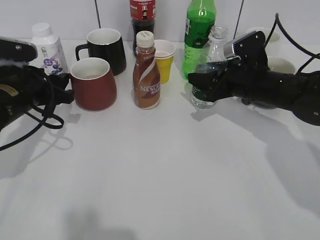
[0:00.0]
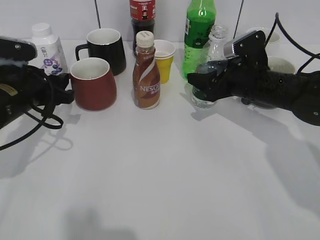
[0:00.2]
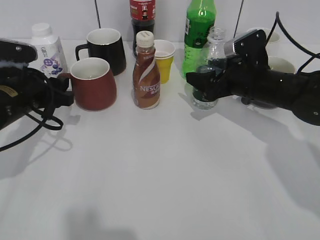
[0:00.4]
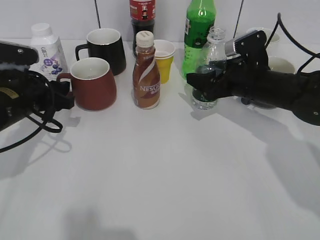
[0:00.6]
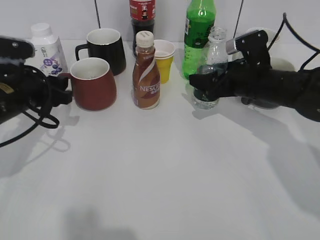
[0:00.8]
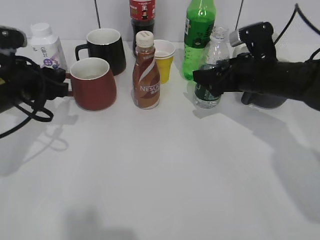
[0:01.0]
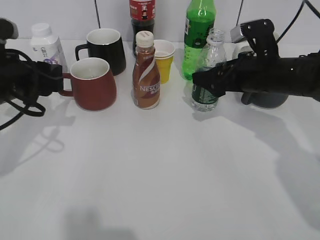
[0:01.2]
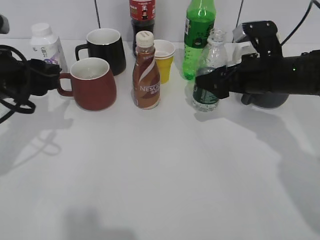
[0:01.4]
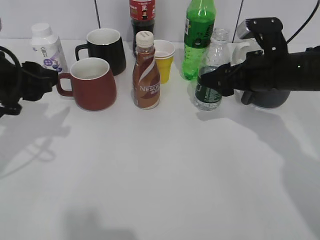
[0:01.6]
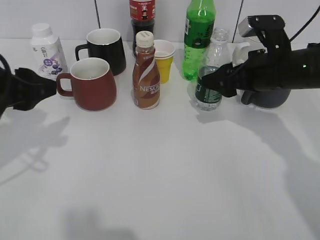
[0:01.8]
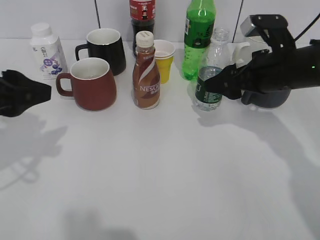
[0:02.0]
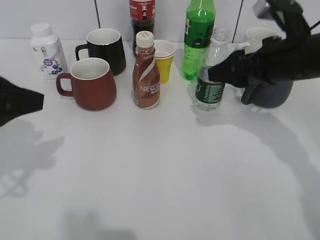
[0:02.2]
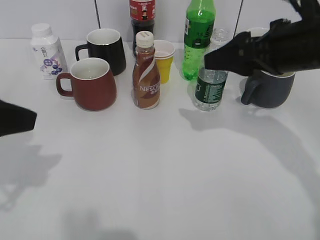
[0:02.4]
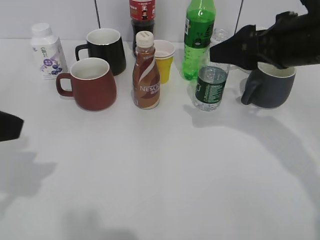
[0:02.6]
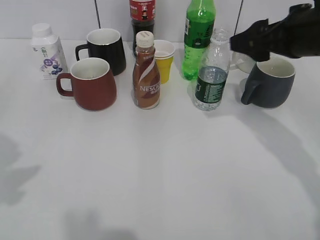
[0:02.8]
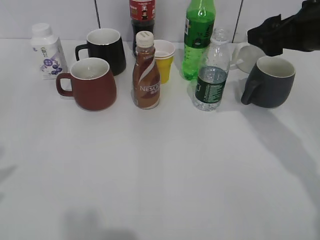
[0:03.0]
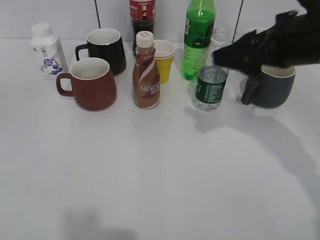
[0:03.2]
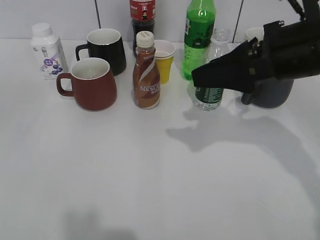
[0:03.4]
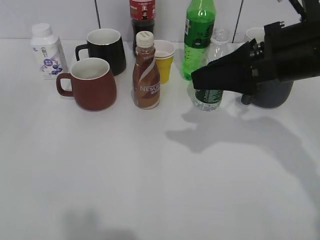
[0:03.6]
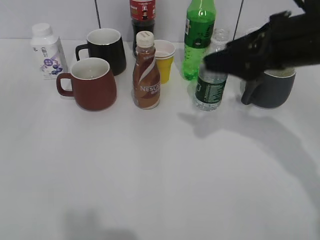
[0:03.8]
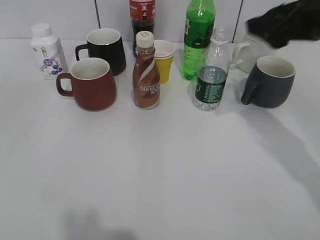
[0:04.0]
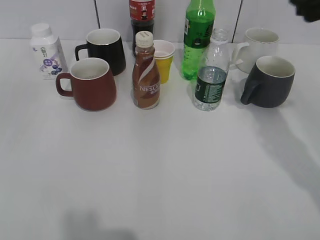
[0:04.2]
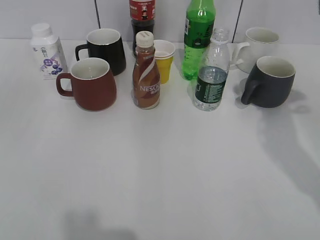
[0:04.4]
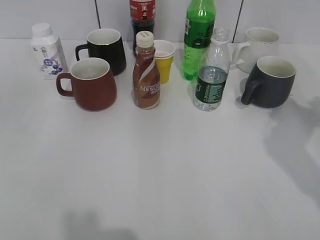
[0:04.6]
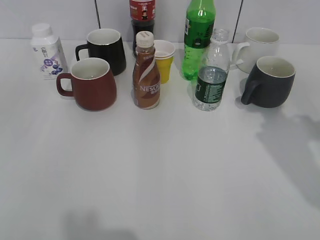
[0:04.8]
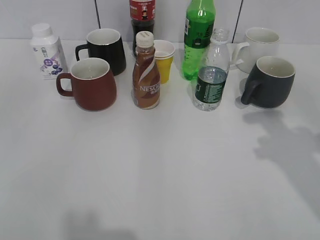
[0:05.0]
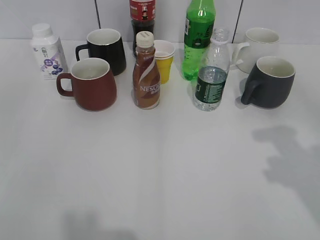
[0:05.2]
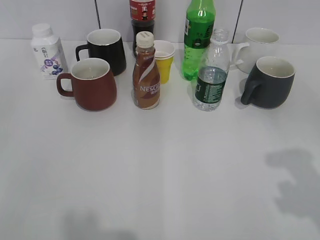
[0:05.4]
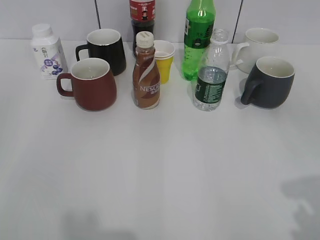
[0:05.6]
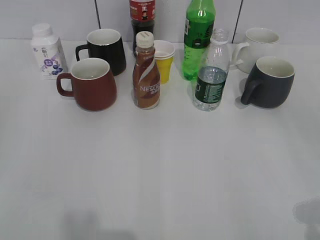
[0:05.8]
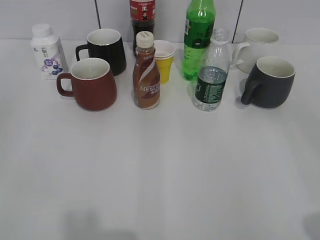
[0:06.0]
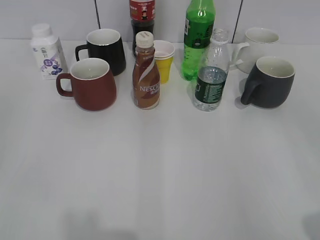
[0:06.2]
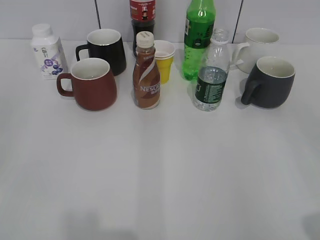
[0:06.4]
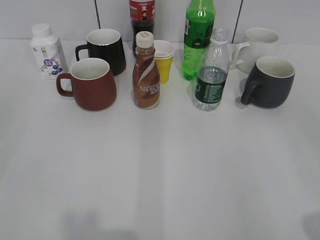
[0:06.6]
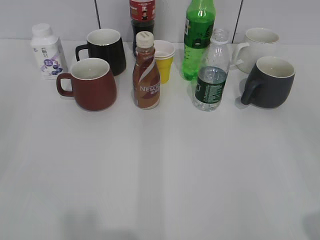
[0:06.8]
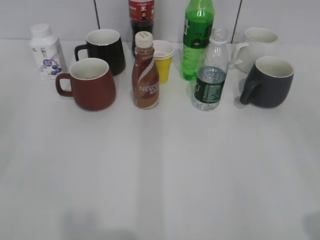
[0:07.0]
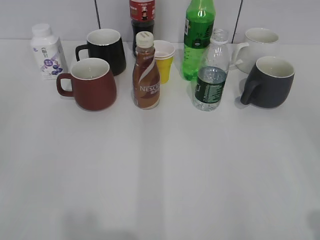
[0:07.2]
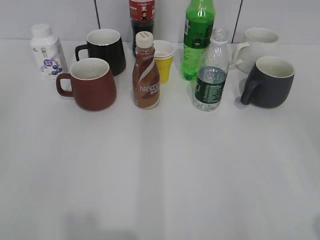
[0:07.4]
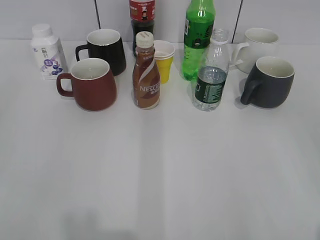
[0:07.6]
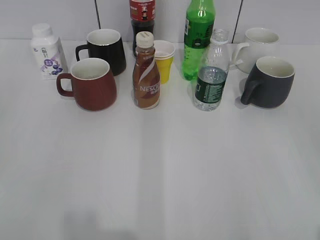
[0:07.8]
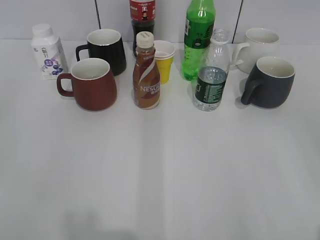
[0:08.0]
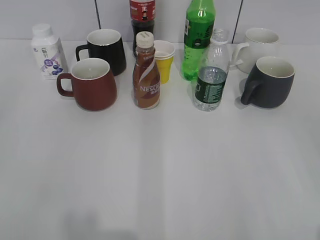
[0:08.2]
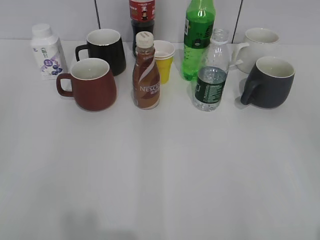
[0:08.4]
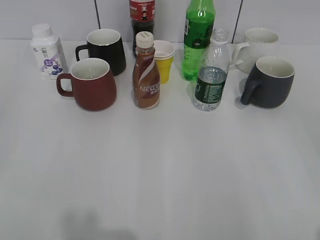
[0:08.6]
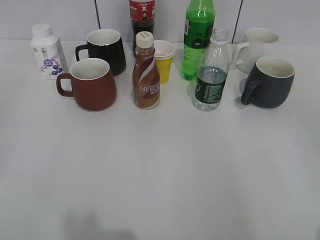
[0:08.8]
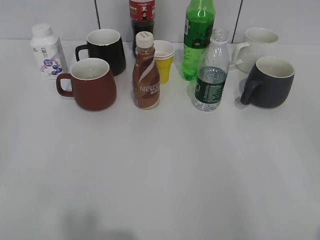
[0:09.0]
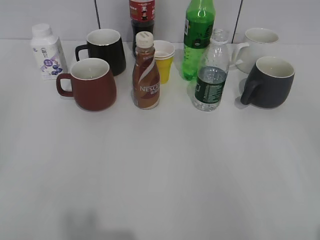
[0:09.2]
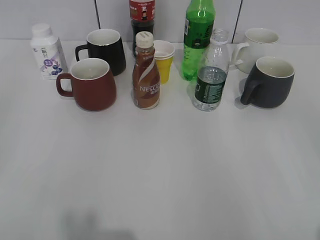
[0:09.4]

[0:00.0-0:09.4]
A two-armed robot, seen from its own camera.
0:00.0 to 0:01.6: The left gripper moves upward and backward, approximately 10 cm, while the right gripper opens its fingers.
0:01.6 to 0:03.2: The right gripper travels upward and backward by some 10 cm, while the left gripper travels backward and upward by about 20 cm.
0:03.2 to 0:04.8: The right gripper shifts some 10 cm to the right.
0:04.8 to 0:06.2: The right gripper travels backward by about 20 cm.
0:07.8 to 0:09.4: Both grippers stay put.

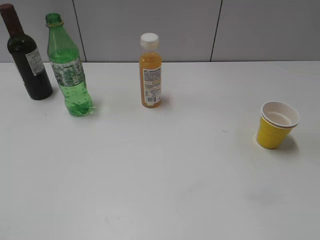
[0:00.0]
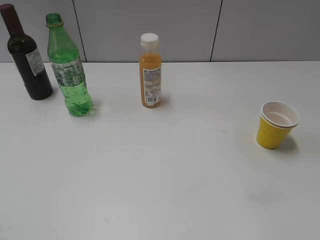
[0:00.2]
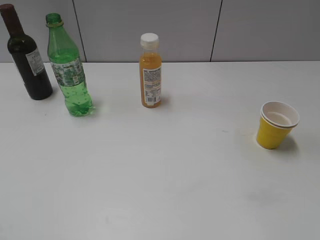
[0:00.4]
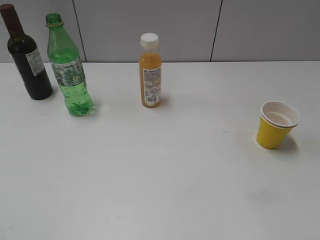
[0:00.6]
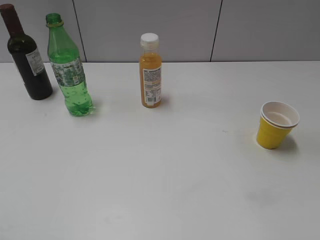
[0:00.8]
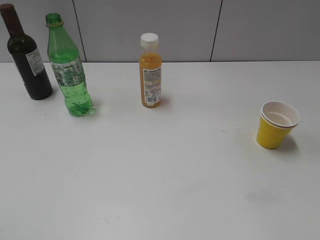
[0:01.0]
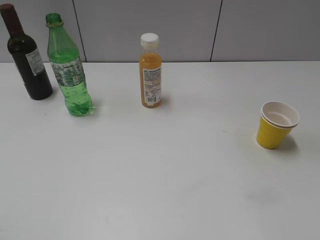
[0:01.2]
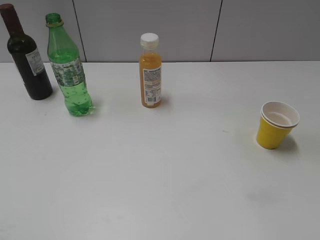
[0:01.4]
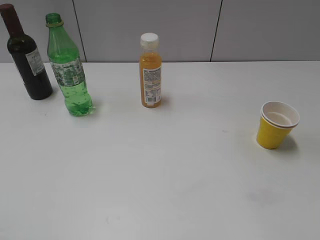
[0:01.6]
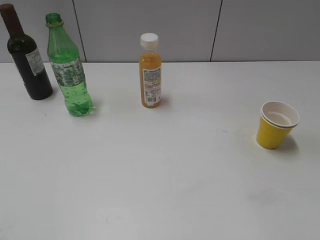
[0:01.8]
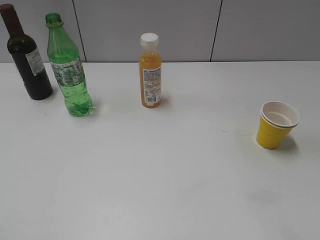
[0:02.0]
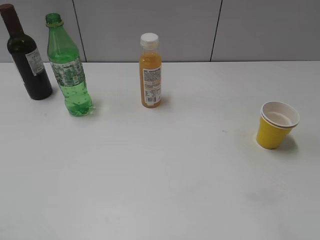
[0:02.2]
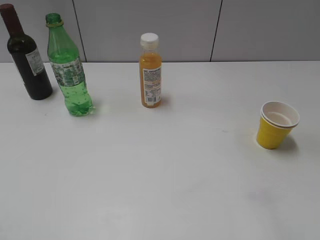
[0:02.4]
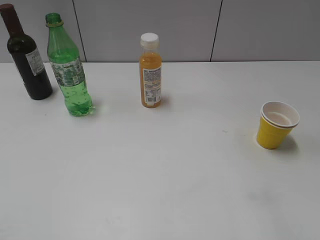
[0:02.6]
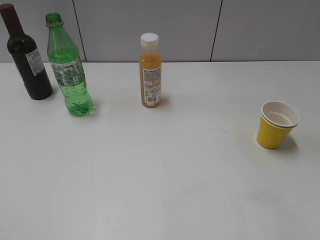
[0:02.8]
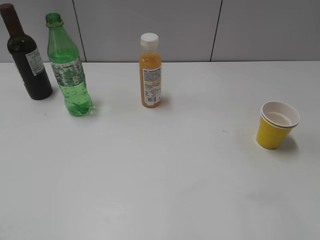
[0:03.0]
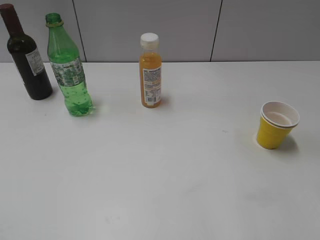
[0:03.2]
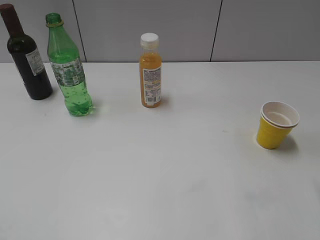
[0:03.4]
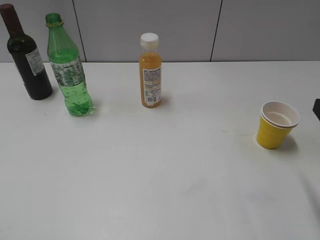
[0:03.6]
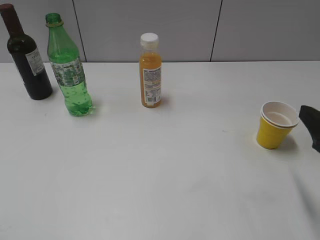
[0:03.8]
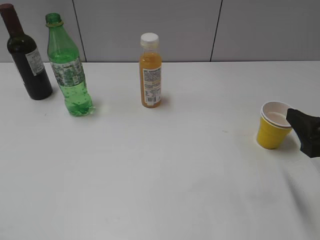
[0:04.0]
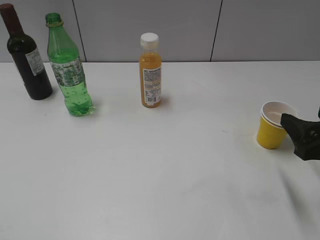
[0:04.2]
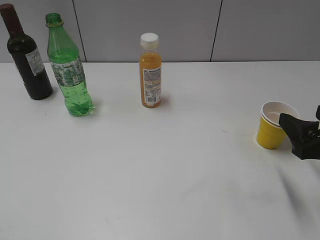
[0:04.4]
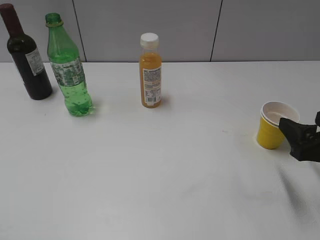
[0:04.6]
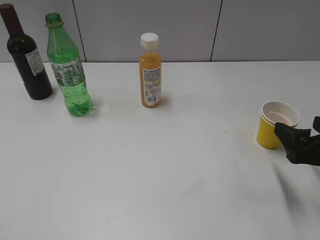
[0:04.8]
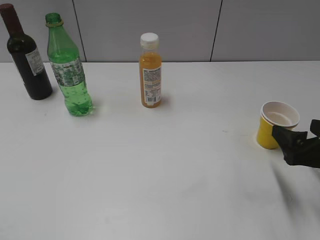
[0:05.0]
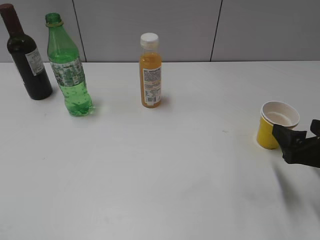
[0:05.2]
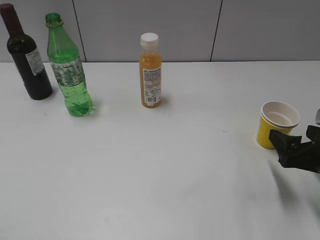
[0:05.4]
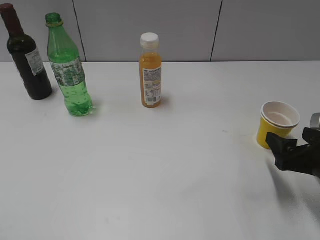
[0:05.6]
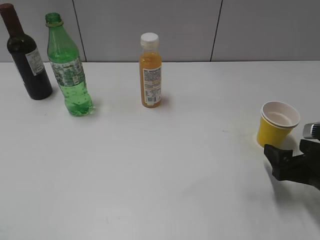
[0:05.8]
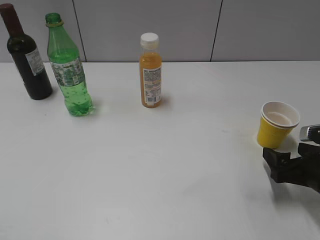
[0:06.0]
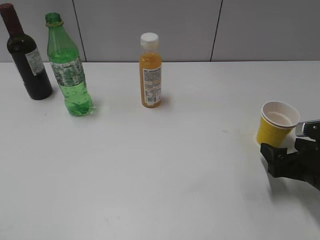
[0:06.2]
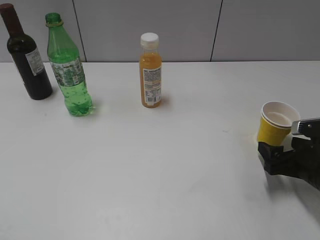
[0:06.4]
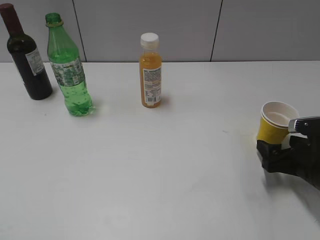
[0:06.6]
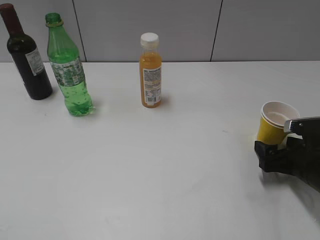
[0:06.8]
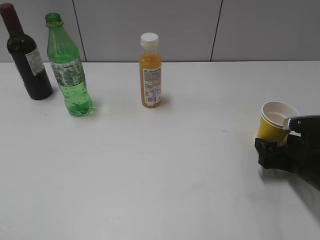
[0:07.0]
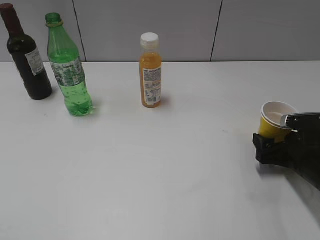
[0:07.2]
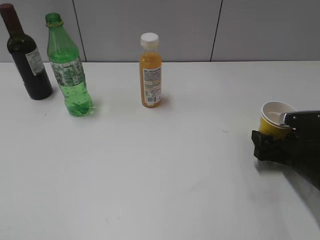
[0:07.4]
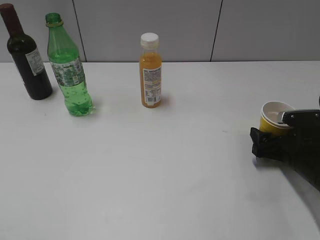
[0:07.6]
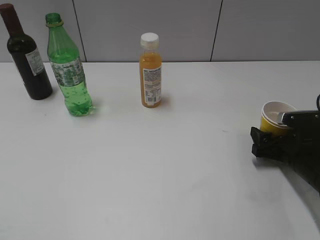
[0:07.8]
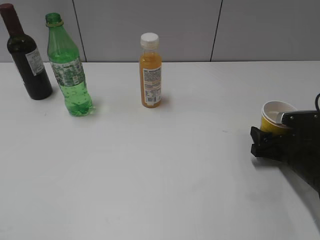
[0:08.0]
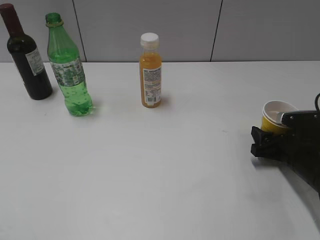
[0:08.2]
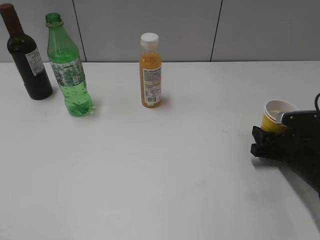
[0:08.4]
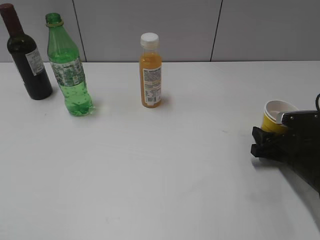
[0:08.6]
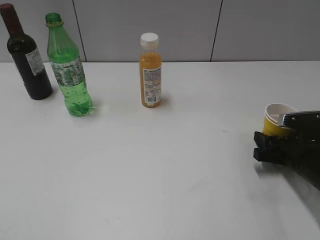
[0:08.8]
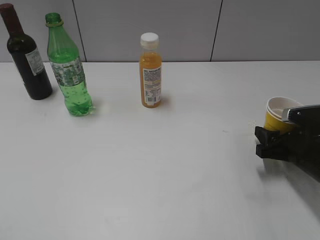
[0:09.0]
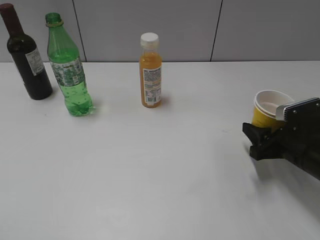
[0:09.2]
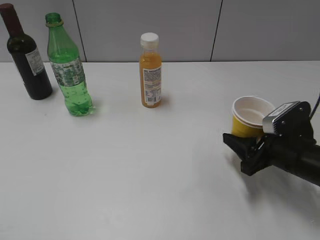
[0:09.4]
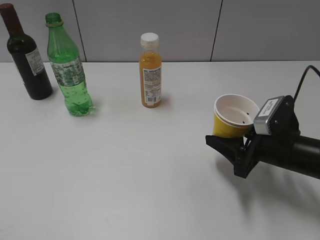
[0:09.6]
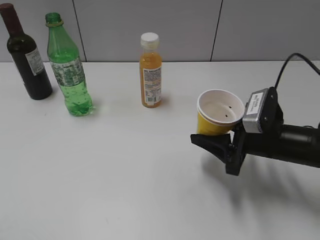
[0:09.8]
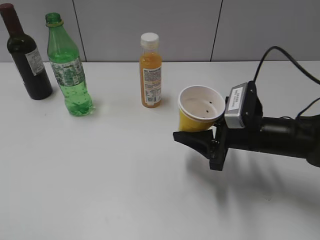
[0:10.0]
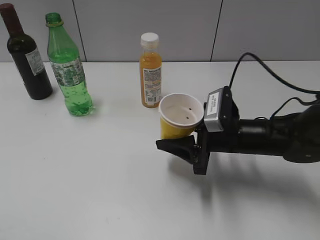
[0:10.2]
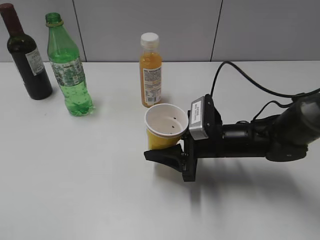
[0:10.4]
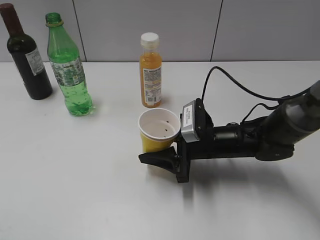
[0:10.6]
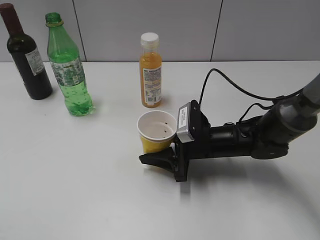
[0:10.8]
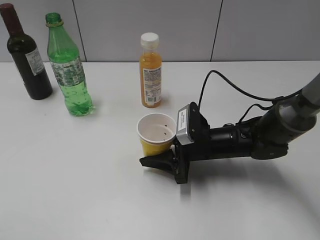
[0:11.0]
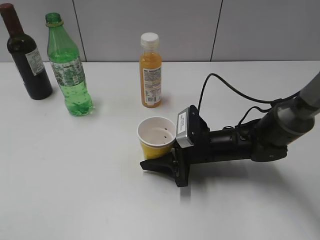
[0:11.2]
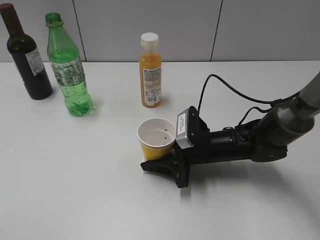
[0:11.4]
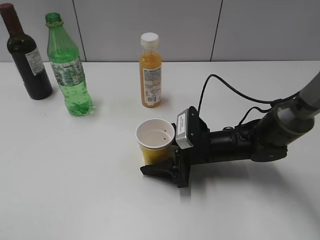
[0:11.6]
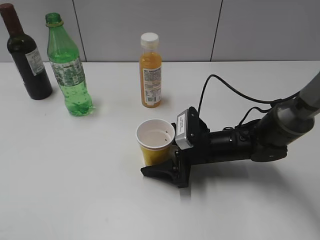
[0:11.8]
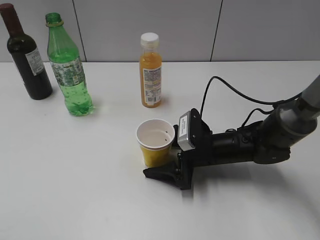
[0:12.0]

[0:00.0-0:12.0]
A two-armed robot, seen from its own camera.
Step, 0:01.2 to 0:08.4: Grasp the yellow paper cup with right gripper.
0:03.0 to 0:04.4: The right gripper travels forward and downward by approximately 10 cm.
0:04.4 to 0:06.0: The right gripper goes approximately 10 cm downward.
0:06.0 to 0:07.6: The right gripper travels forward by about 5 cm.
0:07.6 to 0:09.0: The right gripper closes.
0:09.0 to 0:10.4: The right gripper moves to the left, roughly 15 cm.
0:10.4 to 0:12.0: The right gripper opens its fingers.

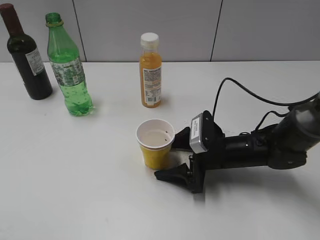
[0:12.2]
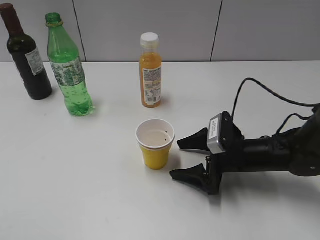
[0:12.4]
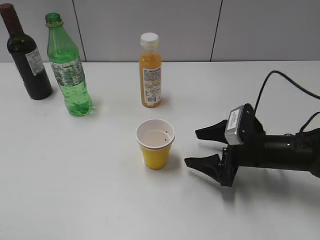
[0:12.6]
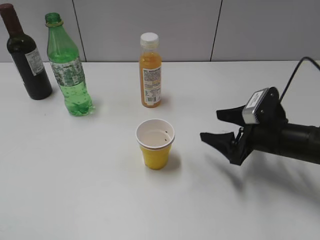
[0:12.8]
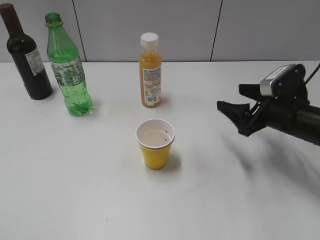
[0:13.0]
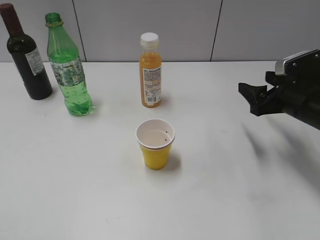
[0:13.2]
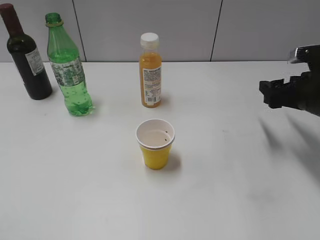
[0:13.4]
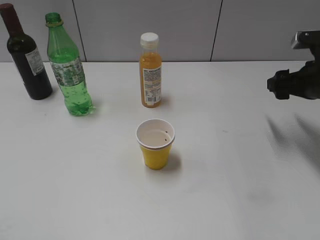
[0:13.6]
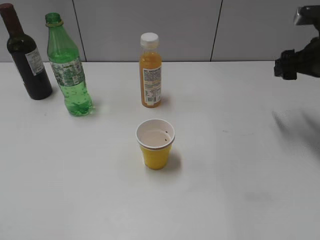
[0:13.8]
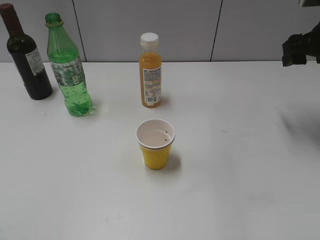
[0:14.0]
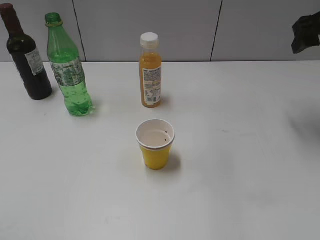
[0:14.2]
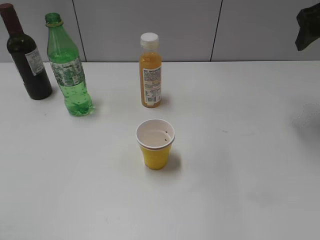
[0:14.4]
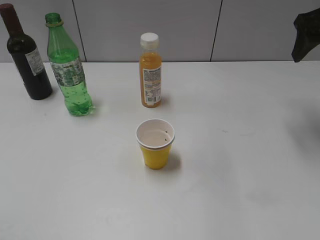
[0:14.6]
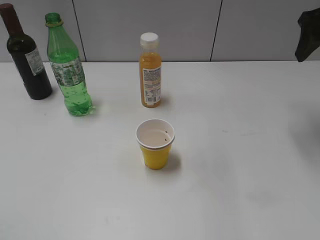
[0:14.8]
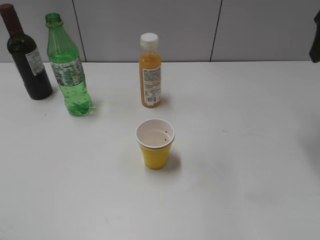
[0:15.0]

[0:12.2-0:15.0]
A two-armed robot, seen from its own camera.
0:12.2 to 0:13.6: The right gripper goes approximately 20 cm to the right and upward.
0:13.6 to 0:15.0: The right gripper moves upward, approximately 15 cm.
